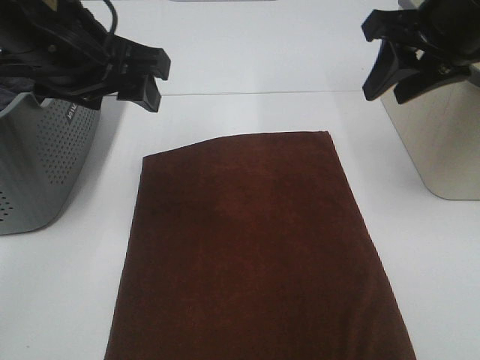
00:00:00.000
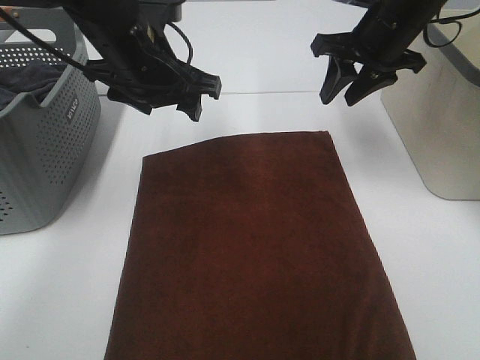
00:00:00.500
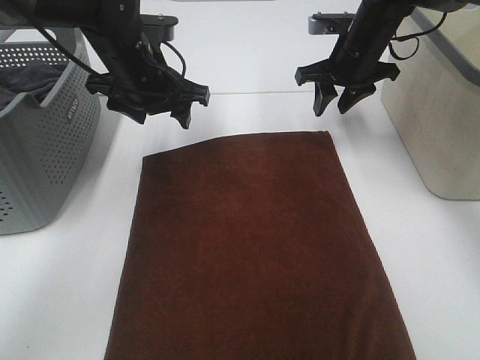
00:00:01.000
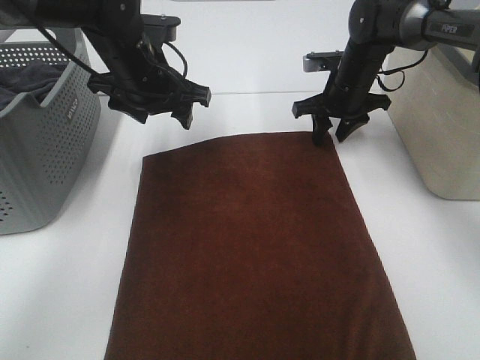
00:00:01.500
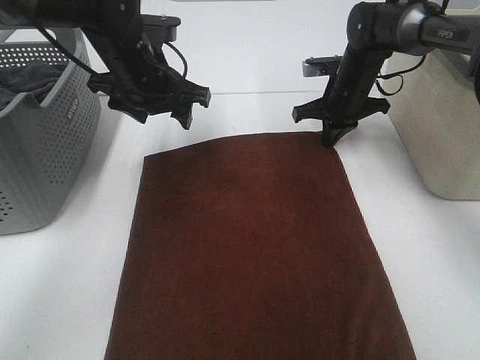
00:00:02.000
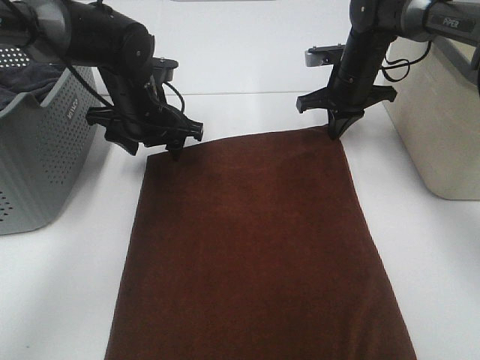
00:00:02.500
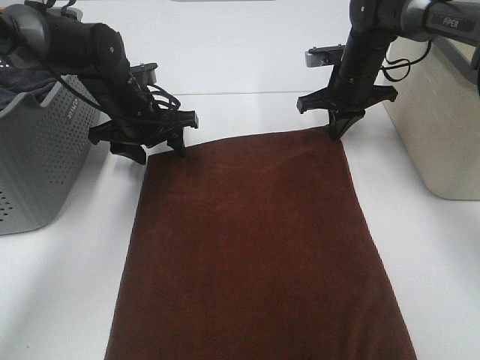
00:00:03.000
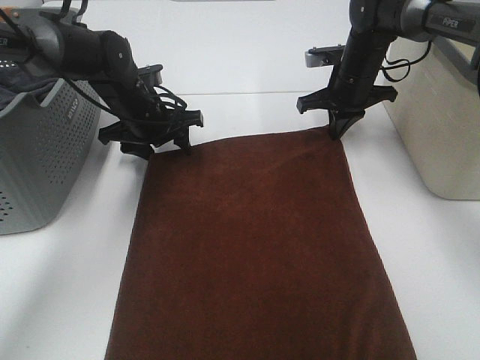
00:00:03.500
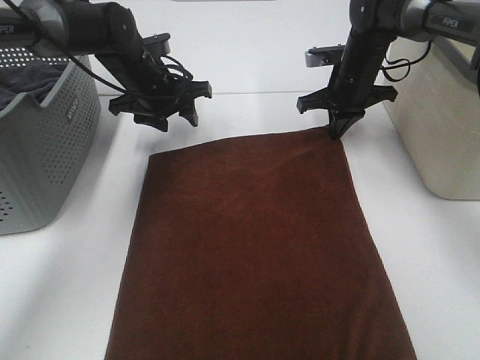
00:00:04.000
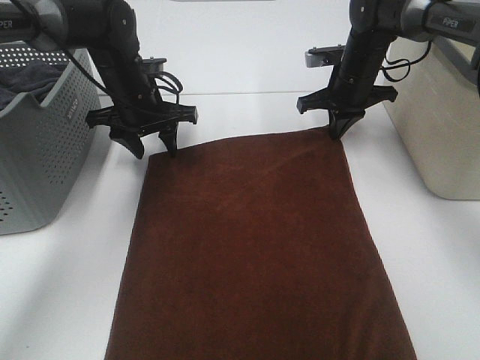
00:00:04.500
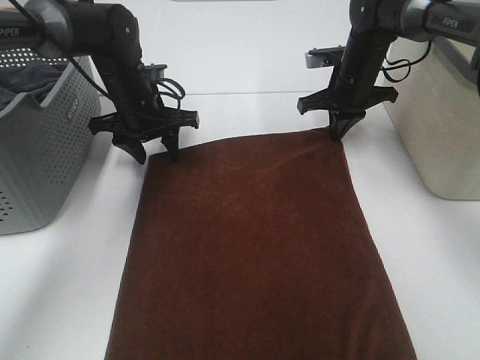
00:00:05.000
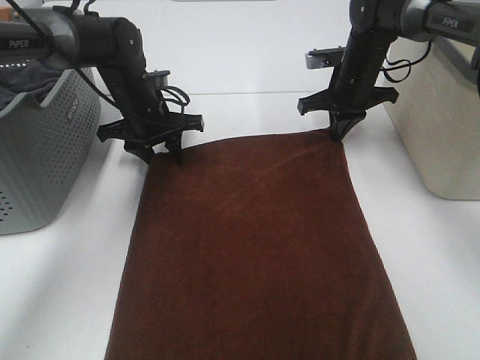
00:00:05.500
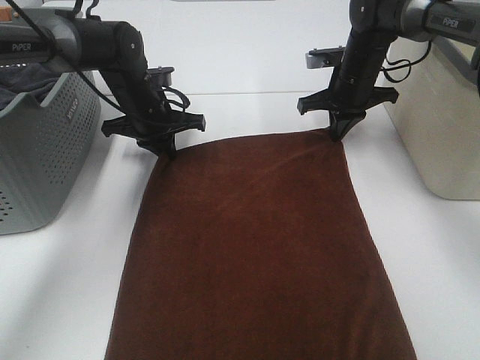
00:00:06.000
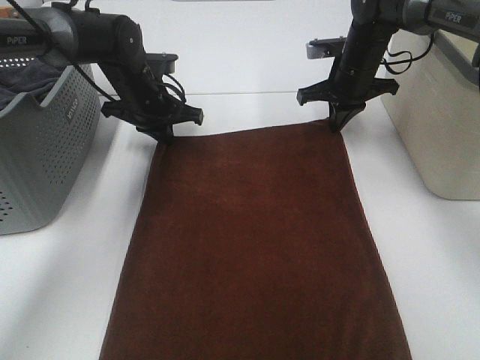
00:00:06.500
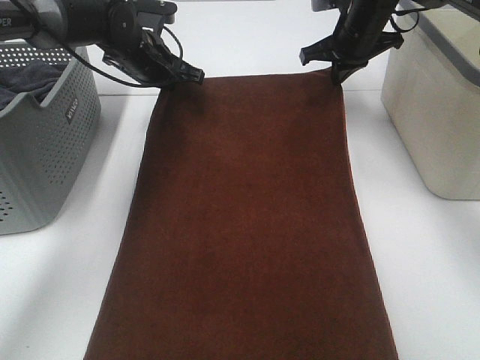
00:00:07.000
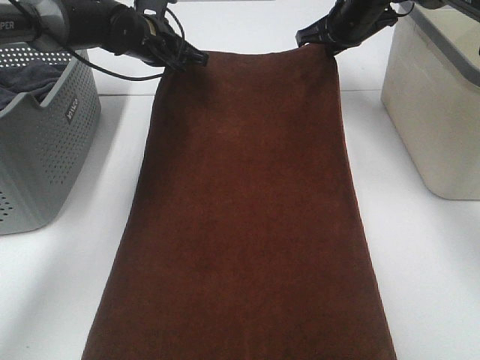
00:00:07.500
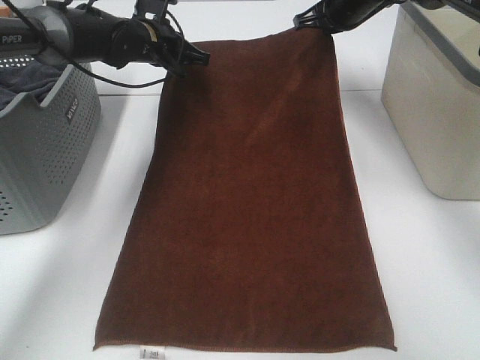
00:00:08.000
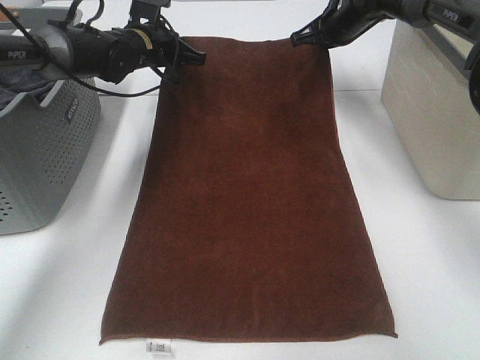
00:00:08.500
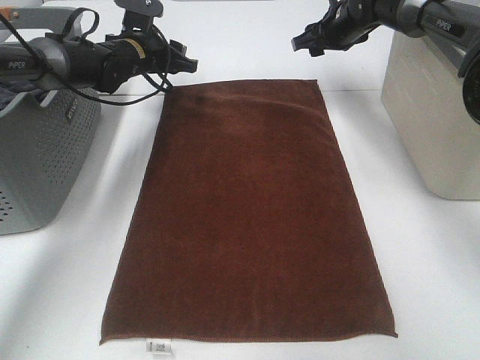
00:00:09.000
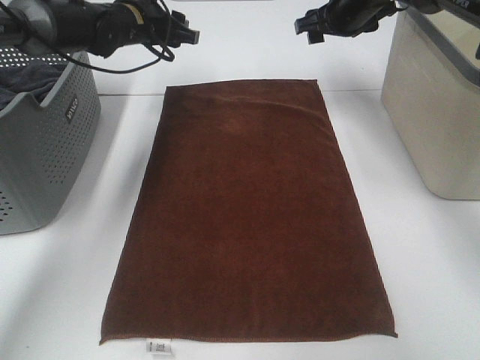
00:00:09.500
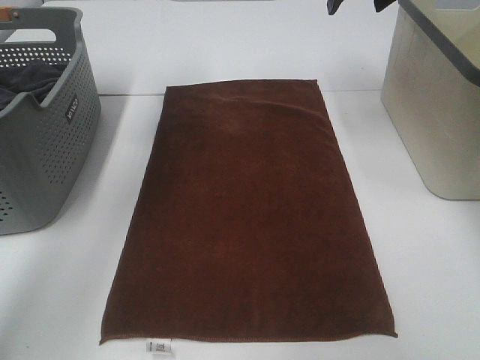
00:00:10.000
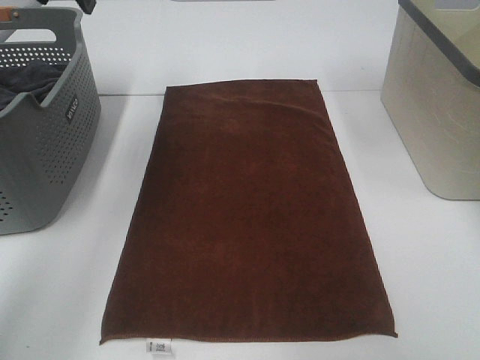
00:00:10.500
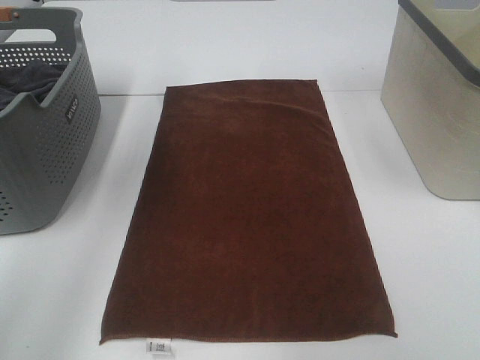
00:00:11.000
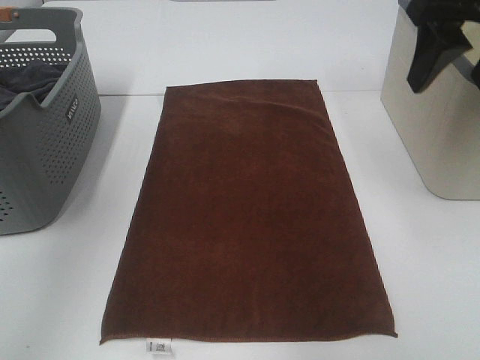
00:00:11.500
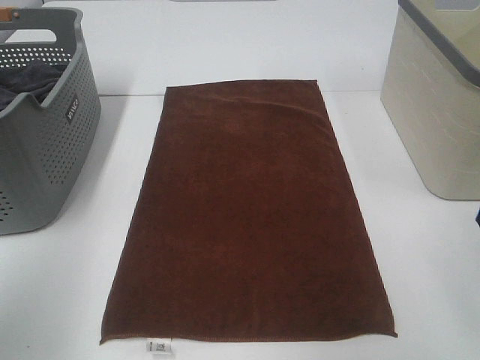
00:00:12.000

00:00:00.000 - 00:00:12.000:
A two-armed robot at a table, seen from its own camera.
Task of the whole recording: Remove the towel and place it.
Step, 00:00:00.000 - 00:00:03.000: Left hand:adjust the brown towel.
Step, 00:00:00.000 - 00:00:03.000: Right hand:adjust the brown towel.
00:00:00.000 - 00:00:02.000: The left gripper moves forward and downward, some 15 cm. Meanwhile the right gripper travels downward and forward by some 25 cm, and closes.
00:00:02.000 - 00:00:04.000: The left gripper is displaced forward and downward by approximately 10 cm.
00:00:04.000 - 00:00:06.000: The left gripper closes.
00:00:06.000 - 00:00:08.000: The grippers both shift upward and forward by about 10 cm.
00:00:08.000 - 00:00:10.000: The two grippers go about 15 cm upward and backward. The right gripper opens, while the left gripper opens up.
00:00:10.000 - 00:00:12.000: Both grippers travel together backward, about 30 cm.

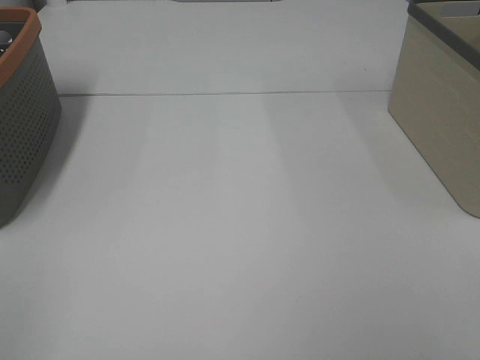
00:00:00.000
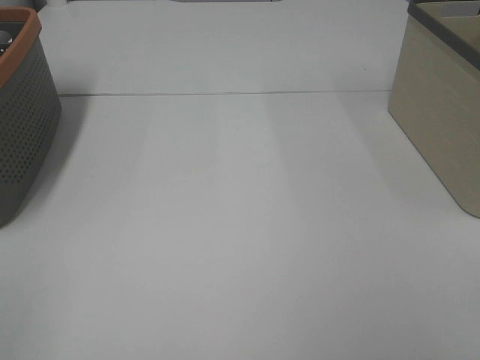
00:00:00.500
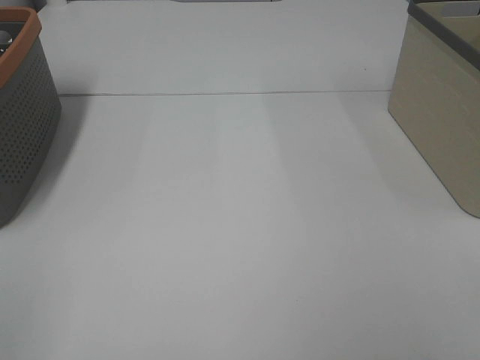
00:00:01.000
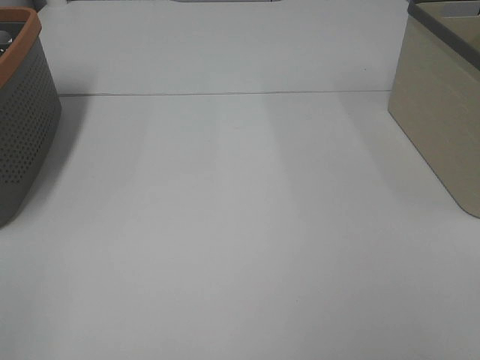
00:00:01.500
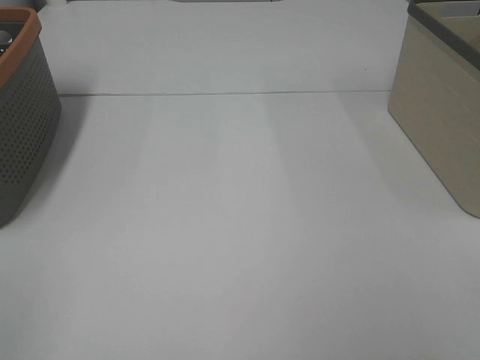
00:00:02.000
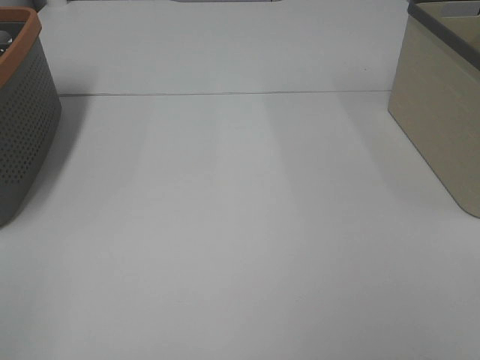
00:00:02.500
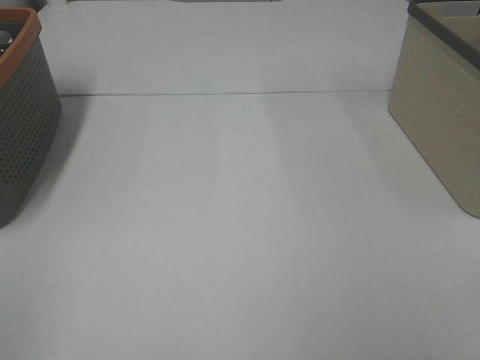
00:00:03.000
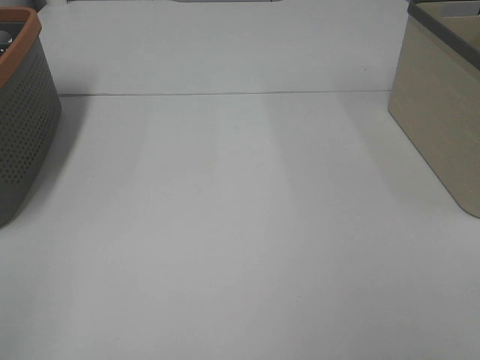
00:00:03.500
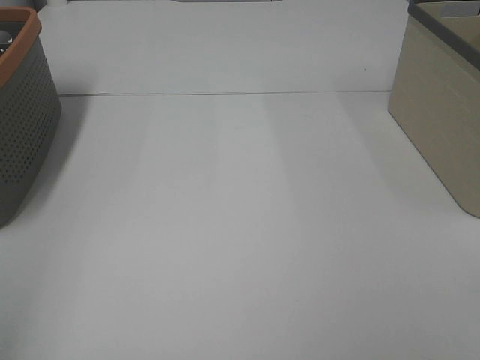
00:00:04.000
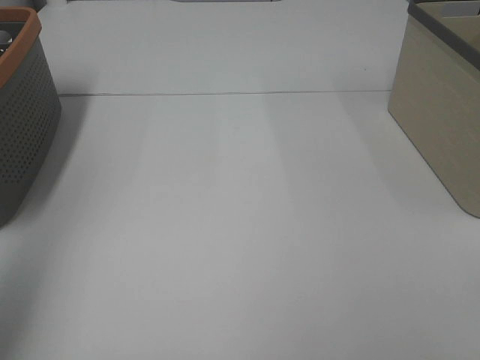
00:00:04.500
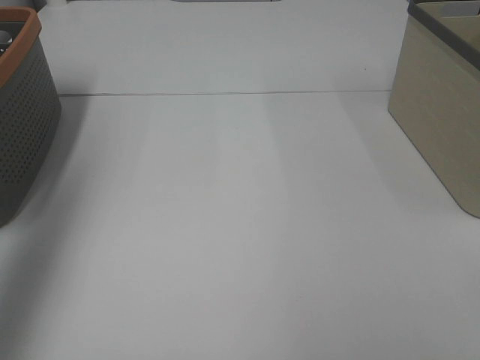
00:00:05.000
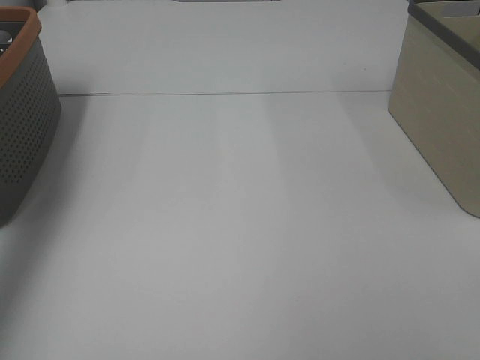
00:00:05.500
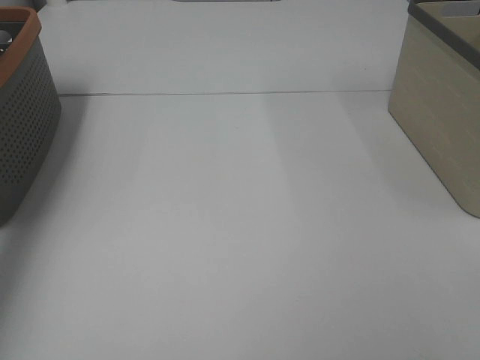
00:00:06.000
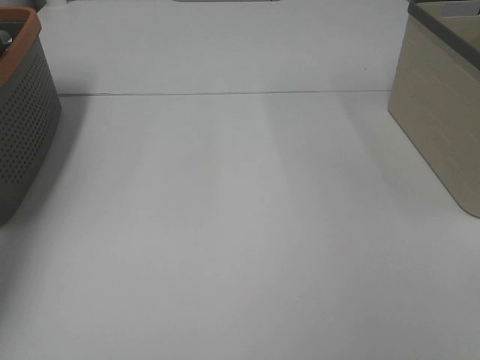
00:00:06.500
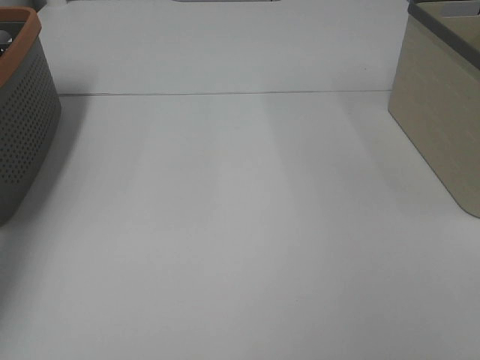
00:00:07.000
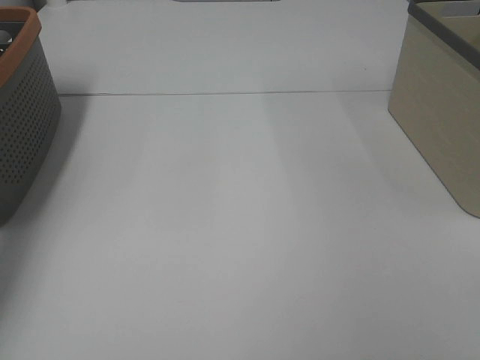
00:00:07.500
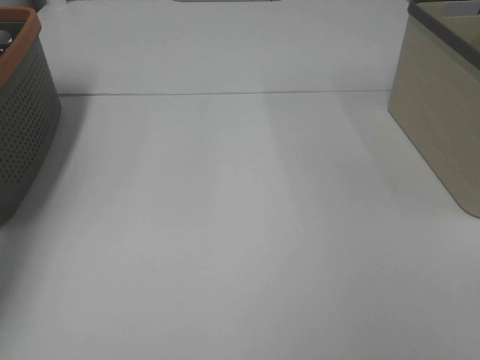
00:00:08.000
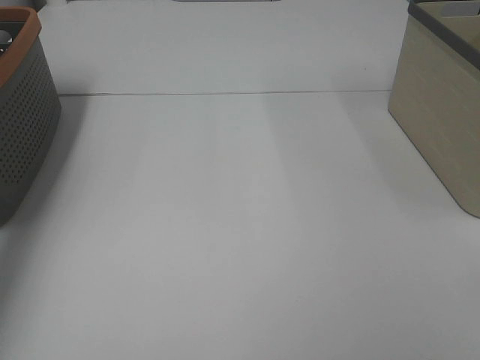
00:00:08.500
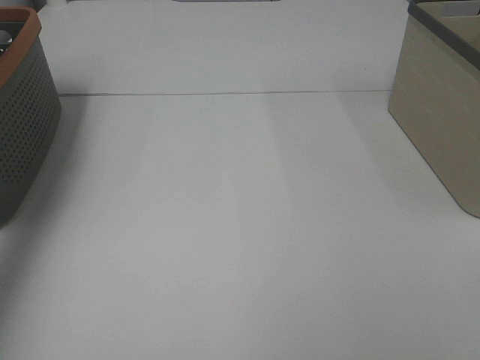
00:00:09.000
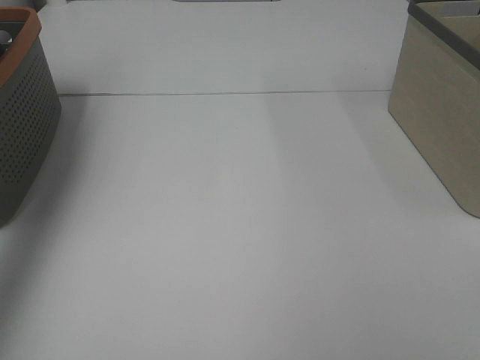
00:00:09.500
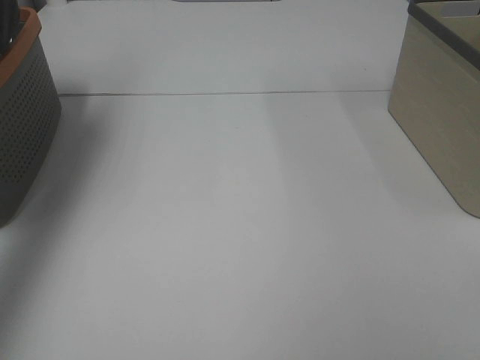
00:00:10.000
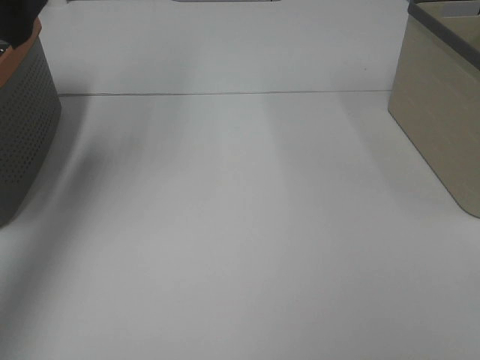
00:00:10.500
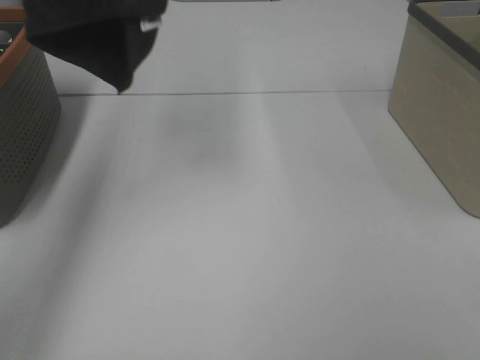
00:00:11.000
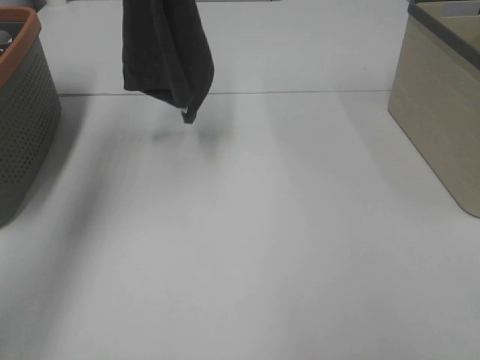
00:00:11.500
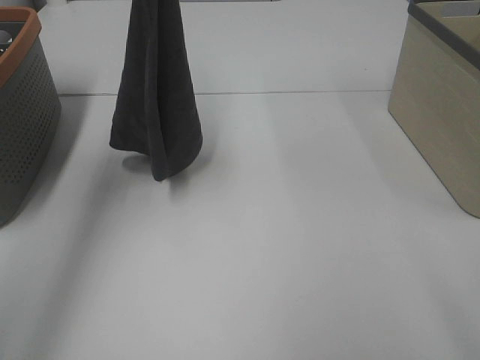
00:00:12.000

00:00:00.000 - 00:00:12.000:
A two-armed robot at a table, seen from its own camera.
Task of the whole recording: Remove the towel and place it.
00:00:00.000 - 00:00:02.000: Neither gripper changes place.
00:00:04.000 - 00:00:06.000: The left gripper travels forward by about 40 cm.
00:00:08.000 - 00:00:10.000: The left gripper shifts approximately 30 cm upward and backward.
00:00:10.000 - 00:00:12.000: The left gripper heads to the right and downward, covering roughly 20 cm, while the right gripper shifts some 10 cm forward.

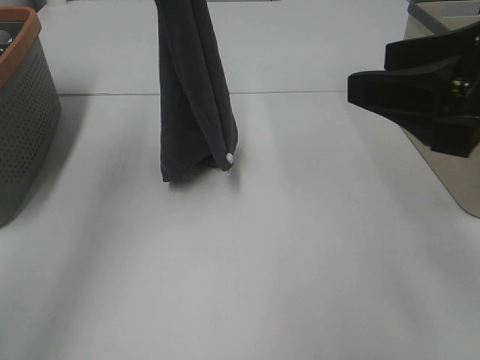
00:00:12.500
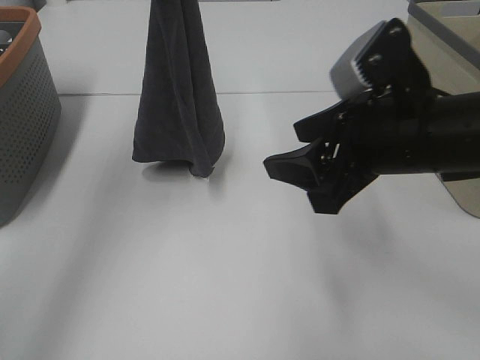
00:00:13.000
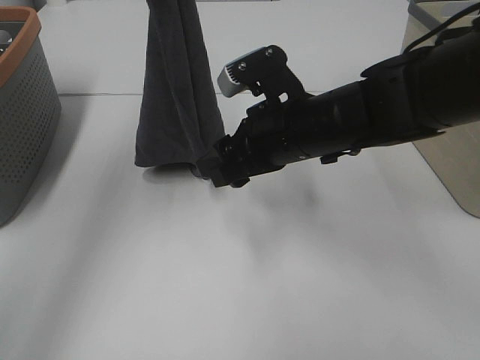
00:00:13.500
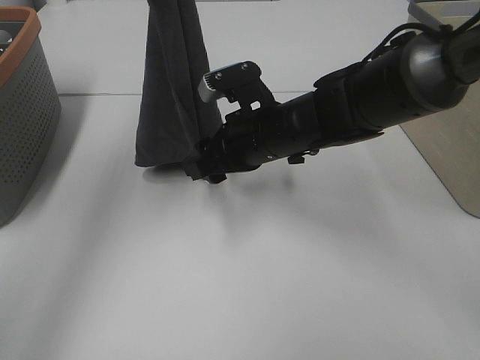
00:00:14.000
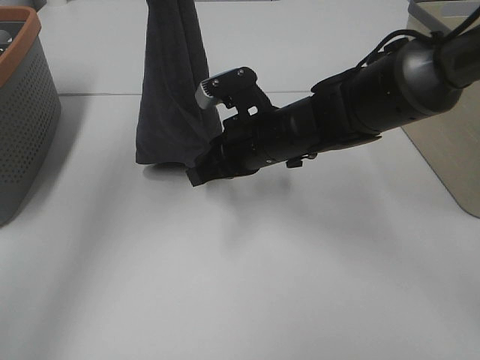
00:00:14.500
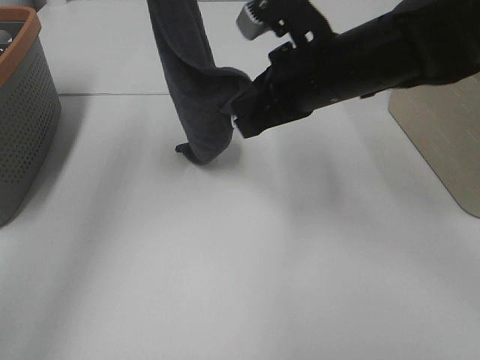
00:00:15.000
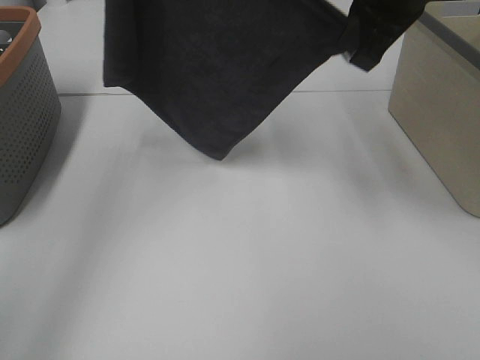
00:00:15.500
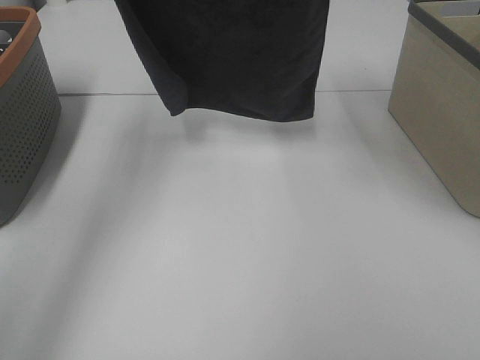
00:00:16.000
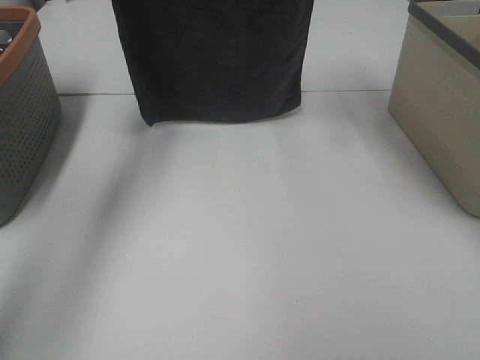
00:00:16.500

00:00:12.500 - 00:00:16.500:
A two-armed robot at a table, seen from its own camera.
Task of the whole recording: Remove the towel and place it.
Step, 00:00:13.000 - 00:00:15.000: Right hand: spread the grey towel flat on the table.
00:00:12.500 - 00:00:14.500: The right gripper heads to the left, downward and forward, covering some 25 cm, and closes up.
00:00:14.500 - 00:00:16.500: The right gripper shifts some 30 cm upward, forward and to the right. The left gripper moves forward and downward, roughly 15 cm.
